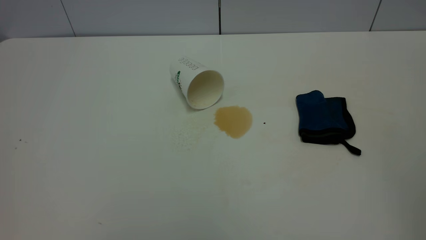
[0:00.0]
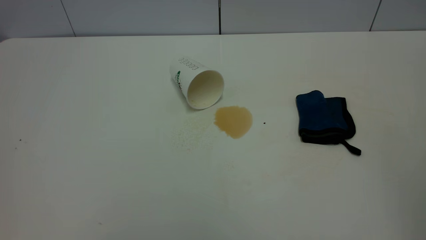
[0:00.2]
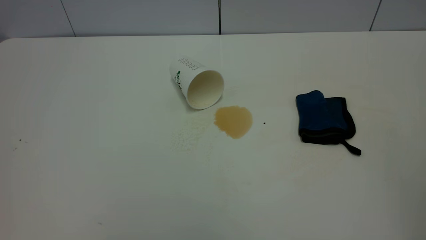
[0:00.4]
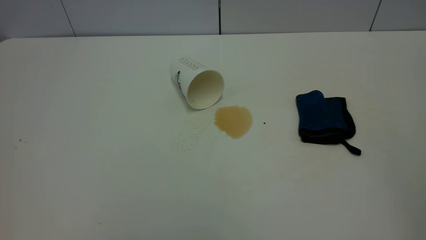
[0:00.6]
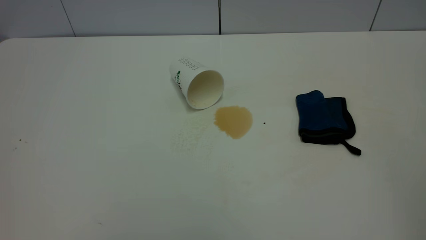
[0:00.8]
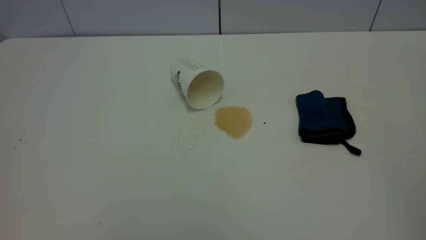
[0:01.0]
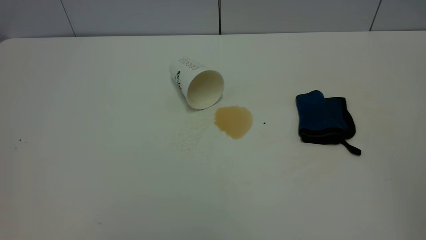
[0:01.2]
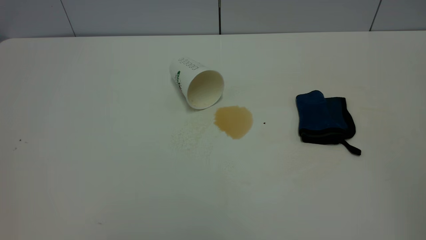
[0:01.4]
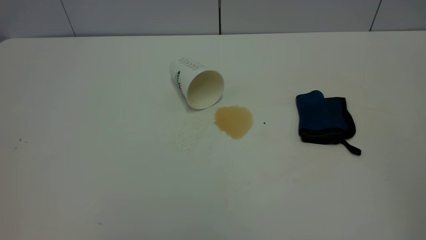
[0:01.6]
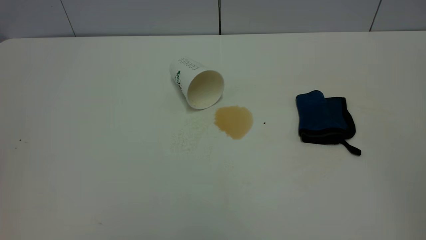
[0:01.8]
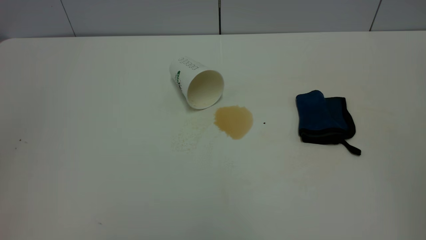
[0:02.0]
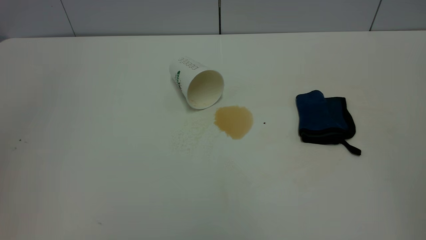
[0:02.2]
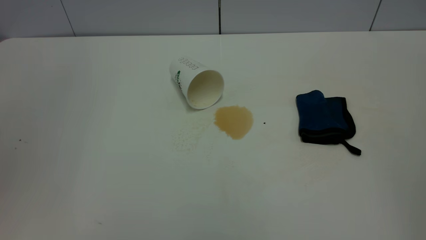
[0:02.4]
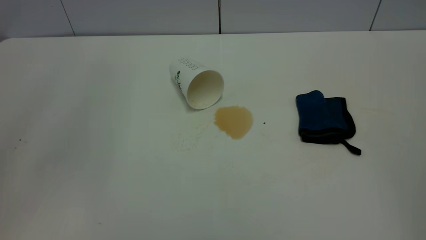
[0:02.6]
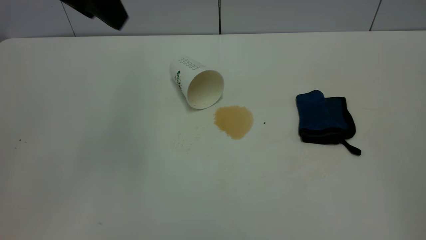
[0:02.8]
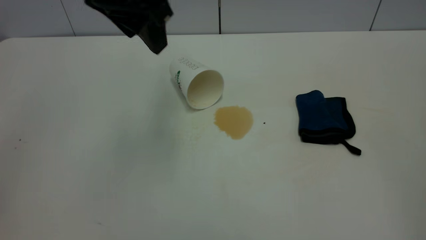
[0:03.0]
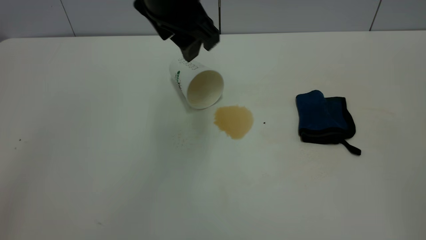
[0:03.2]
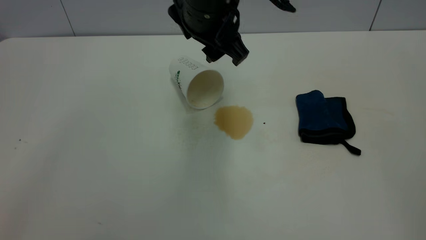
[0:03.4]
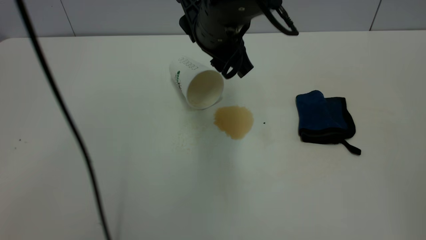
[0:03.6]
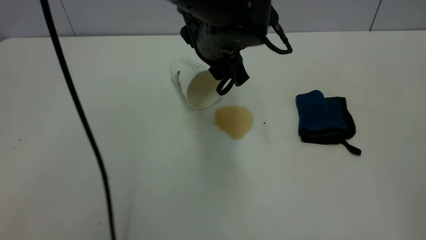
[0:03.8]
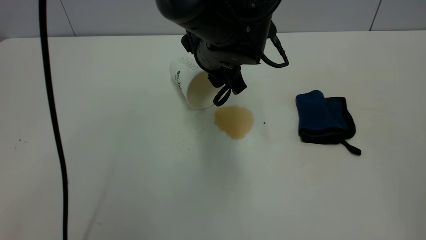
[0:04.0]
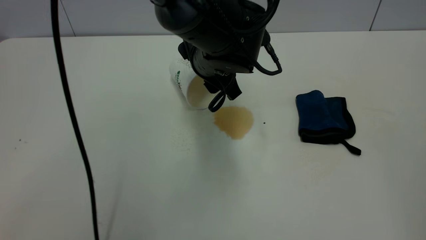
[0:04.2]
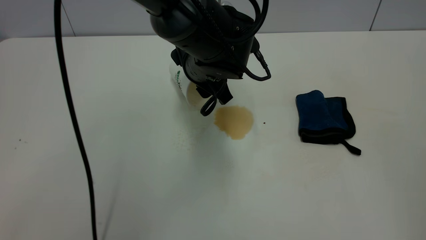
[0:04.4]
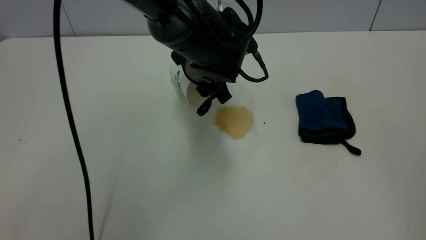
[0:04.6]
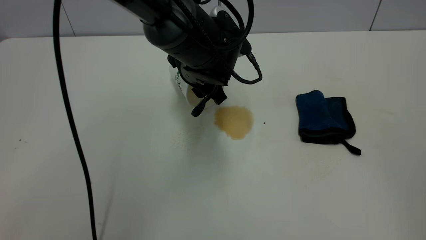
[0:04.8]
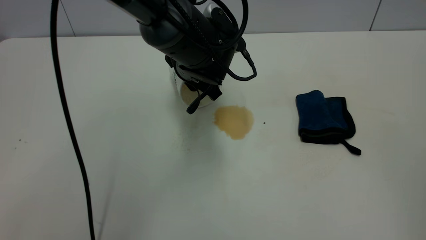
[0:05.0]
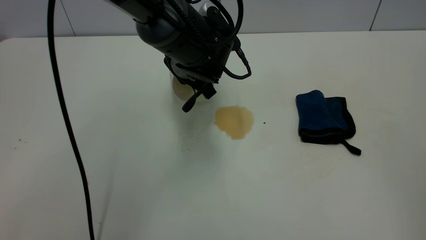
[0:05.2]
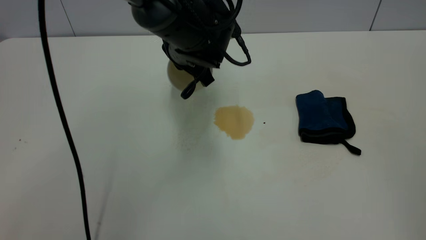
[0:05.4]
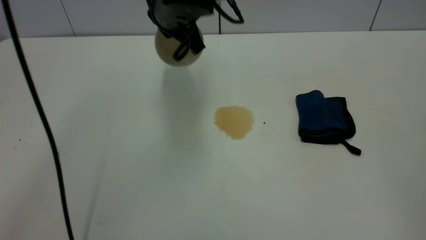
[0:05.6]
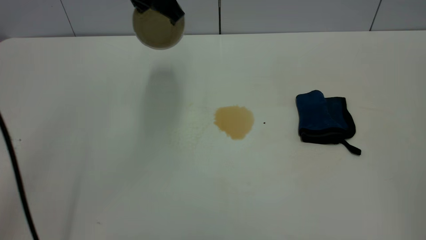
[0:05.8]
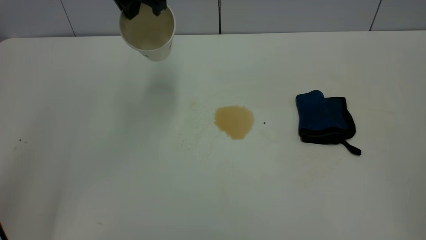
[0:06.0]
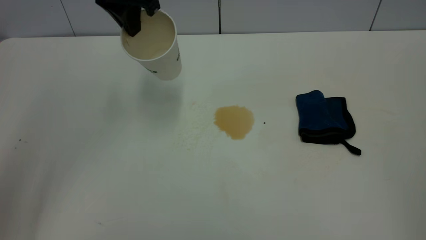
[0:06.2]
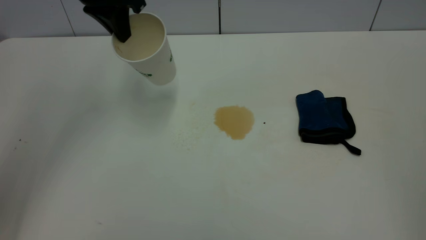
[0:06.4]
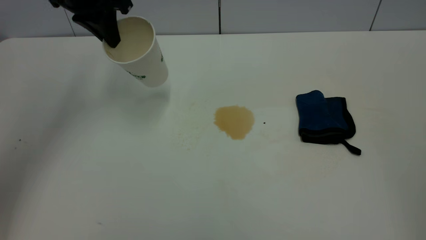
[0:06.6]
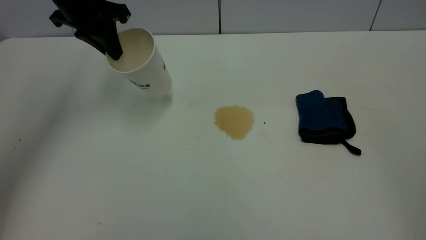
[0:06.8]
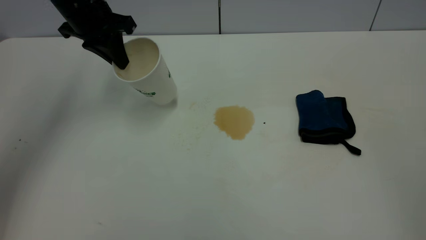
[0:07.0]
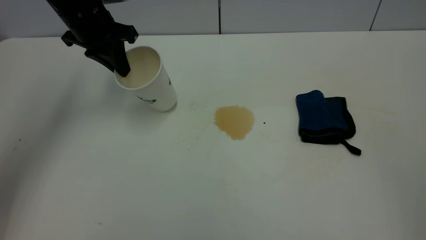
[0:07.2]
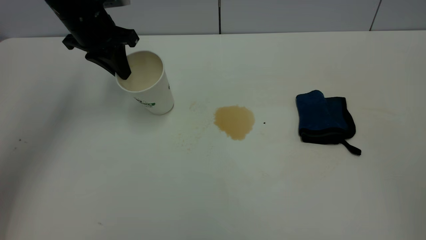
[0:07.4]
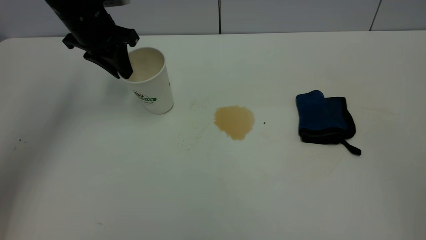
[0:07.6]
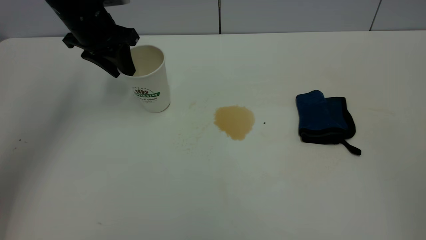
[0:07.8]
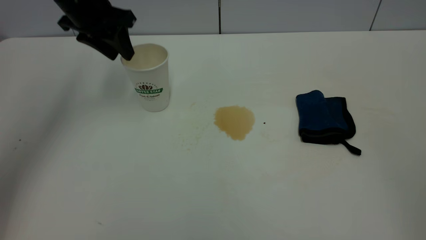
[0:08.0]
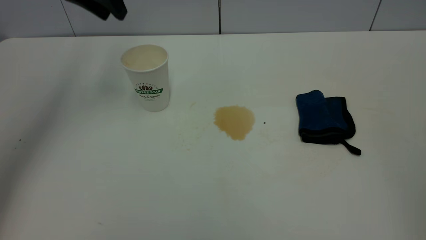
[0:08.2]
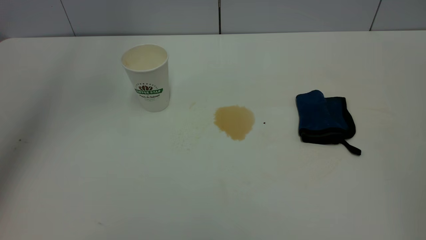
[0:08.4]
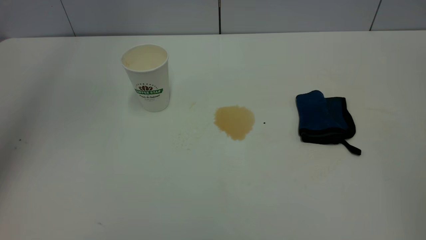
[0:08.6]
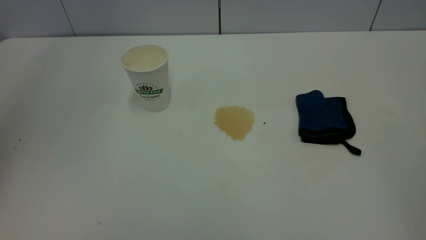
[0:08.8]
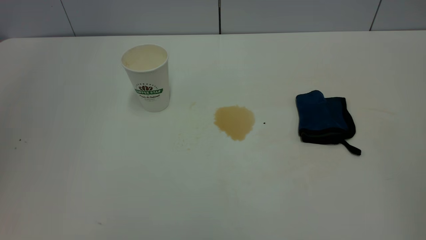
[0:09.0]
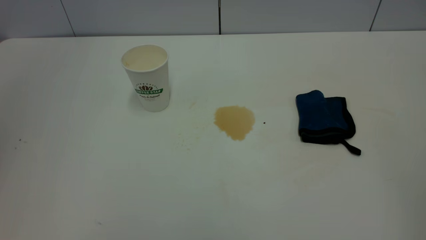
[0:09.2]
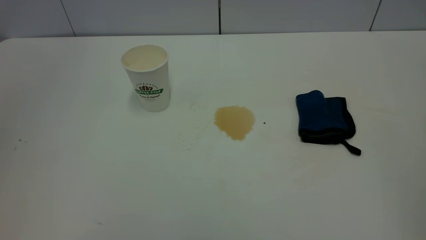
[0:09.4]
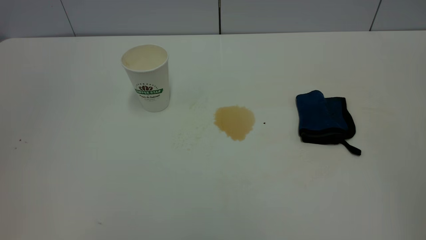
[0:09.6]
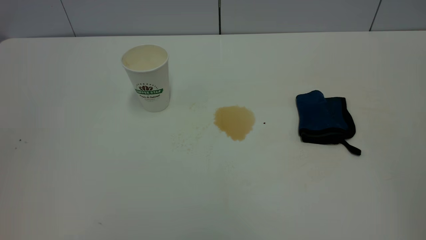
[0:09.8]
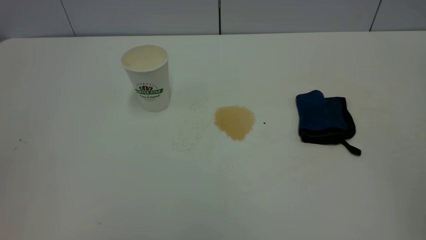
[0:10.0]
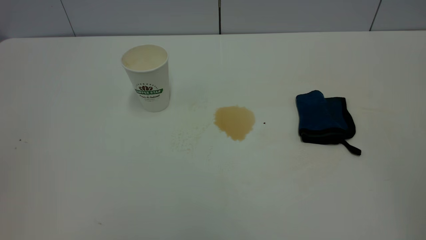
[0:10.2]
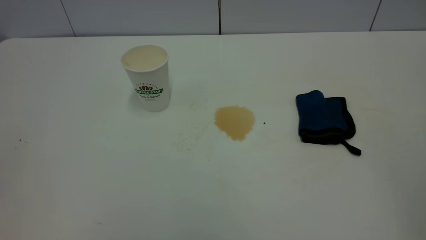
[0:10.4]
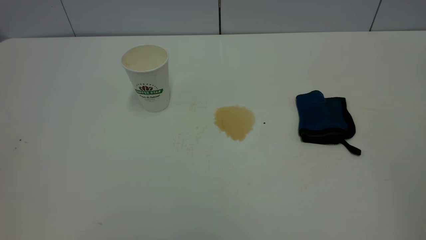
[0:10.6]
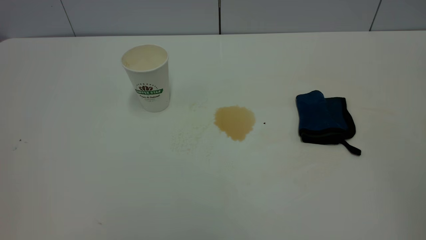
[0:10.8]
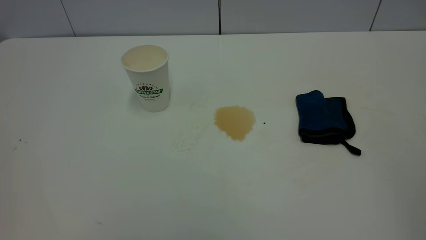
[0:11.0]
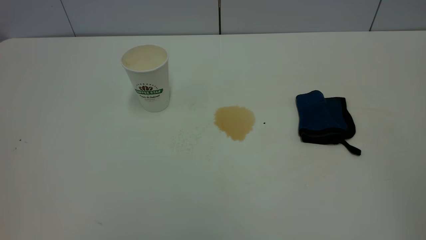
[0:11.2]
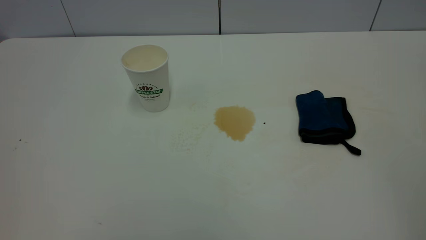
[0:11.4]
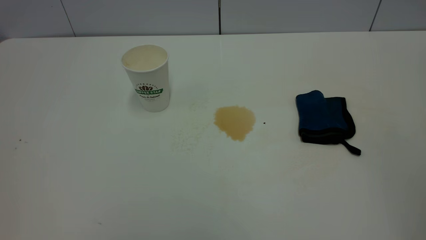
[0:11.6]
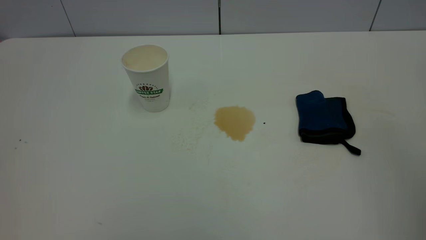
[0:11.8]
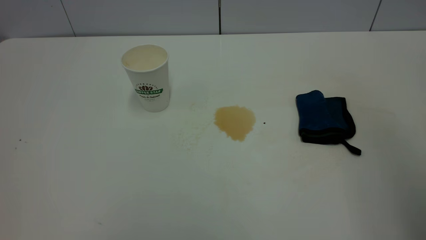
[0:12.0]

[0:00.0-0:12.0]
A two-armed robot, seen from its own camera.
Task of the whole recording: the left gripper pick up the fallen cup and place it upright, the right gripper grasp the blue rag and wipe the tea stain on the table, the right gripper put the blue rag back in its original position.
Step, 0:00.0 to 0:08.0: Stand the paper cup upright.
0:00.0 to 0:01.6: The two grippers keep their place.
0:01.6 to 0:03.0: The left gripper goes roughly 40 cm forward and to the right.
0:03.0 to 0:04.4: The left gripper is displaced downward and to the right by roughly 20 cm.
0:04.4 to 0:06.0: The left gripper heads upward and to the left, covering some 20 cm, and closes its fingers.
0:06.0 to 0:07.6: The left gripper goes approximately 15 cm to the left and downward, and opens.
0:07.6 to 0:09.0: The left gripper heads upward and backward, covering roughly 40 cm.

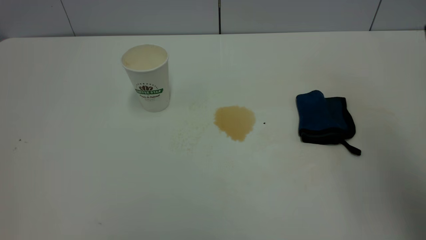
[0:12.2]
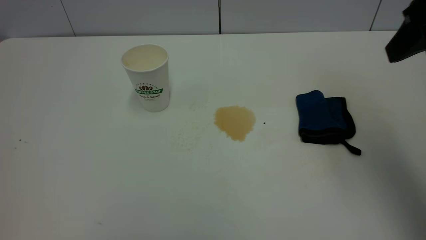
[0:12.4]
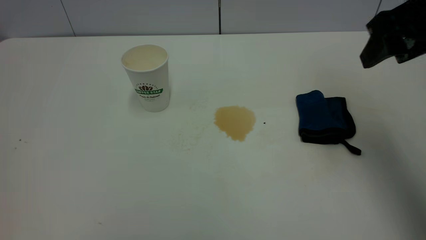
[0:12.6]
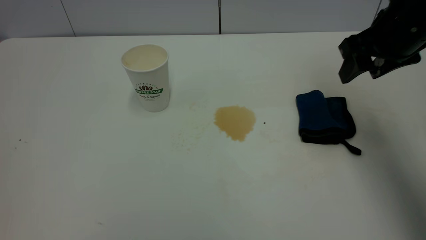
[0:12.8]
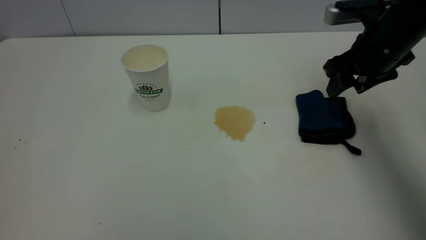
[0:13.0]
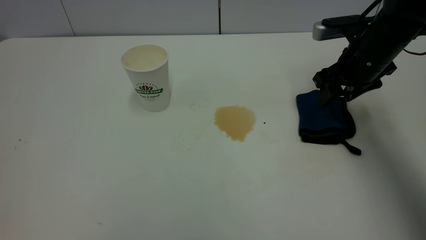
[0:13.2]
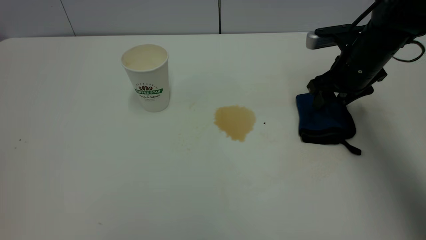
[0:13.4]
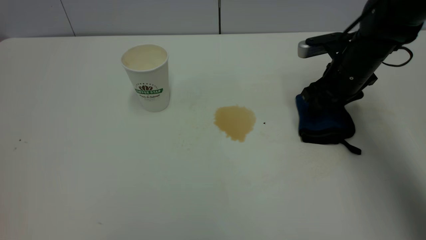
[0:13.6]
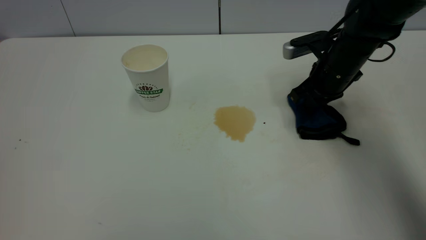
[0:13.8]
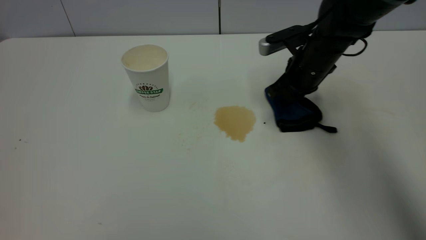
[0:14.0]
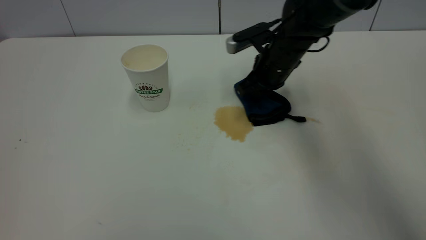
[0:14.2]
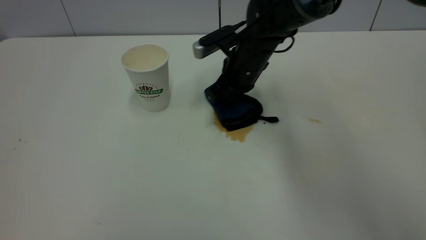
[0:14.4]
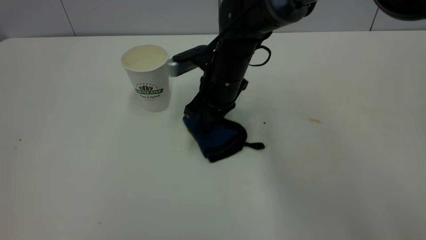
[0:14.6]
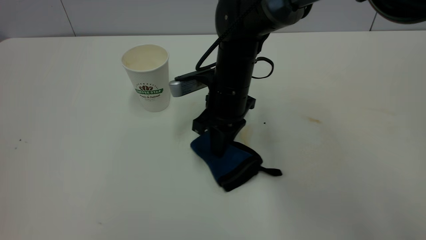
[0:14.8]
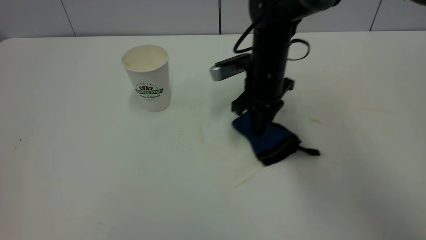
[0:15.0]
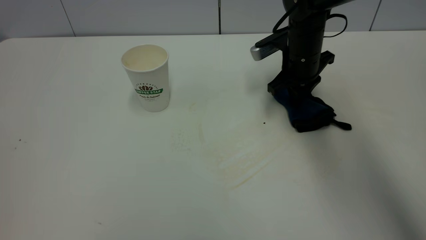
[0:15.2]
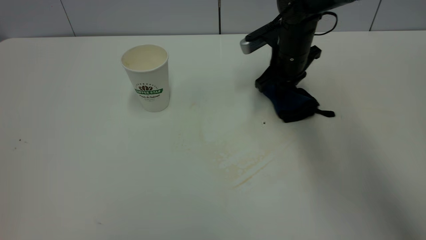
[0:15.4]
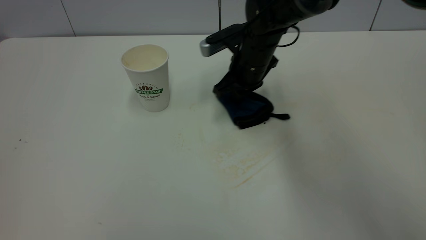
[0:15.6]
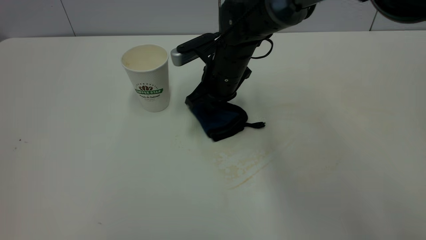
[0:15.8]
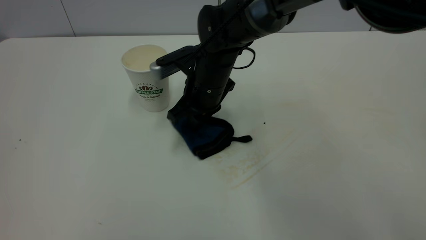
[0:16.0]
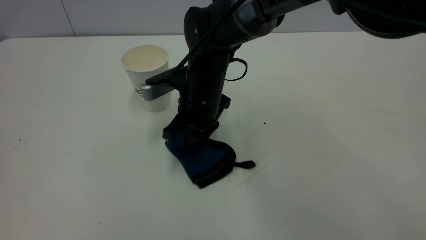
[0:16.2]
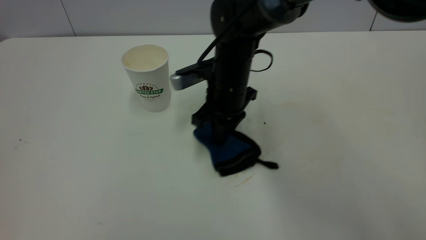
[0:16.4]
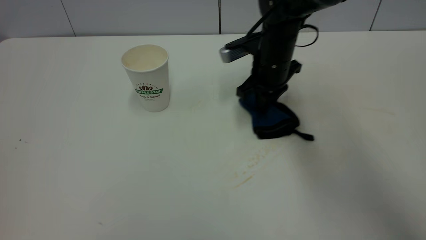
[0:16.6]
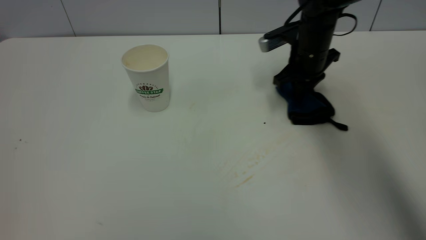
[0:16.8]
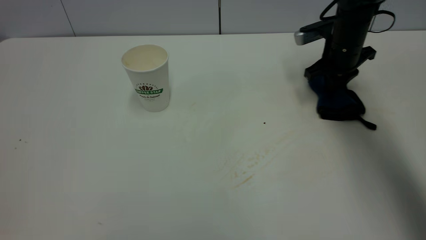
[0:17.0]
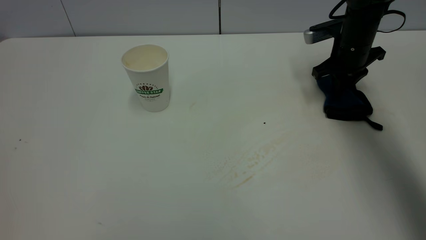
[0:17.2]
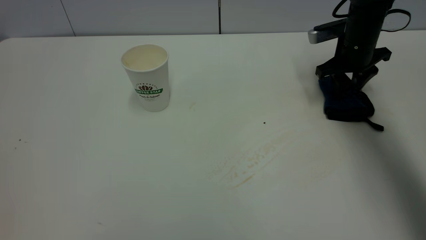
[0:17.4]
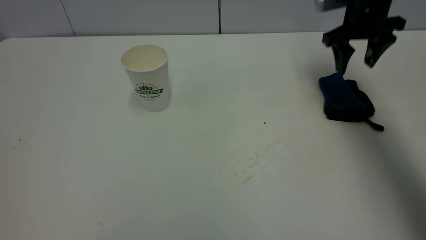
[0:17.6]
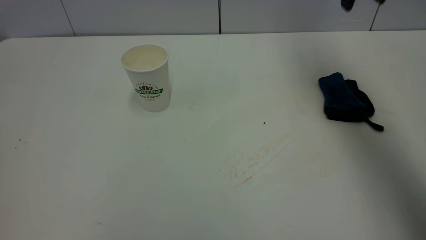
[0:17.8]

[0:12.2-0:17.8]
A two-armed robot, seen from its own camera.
Task of the whole recording: the left gripper pick up the fallen cup and place it upright, the right gripper grasp the blue rag and wipe the tea stain on the table, the right gripper put the blue rag back in its original position.
Step, 0:12.2 to 0:17.6: Wipe the stains off the table with a rag.
0:12.2 to 0:13.6: The right gripper shifts some 30 cm downward and forward.
0:13.6 to 0:15.0: The right gripper is displaced to the left by some 10 cm, and closes up.
0:15.0 to 0:16.4: The right gripper moves left and right over about 15 cm, changing direction 2 times.
0:16.4 to 0:17.8: The right gripper moves upward and to the right, some 30 cm, and opens up.
